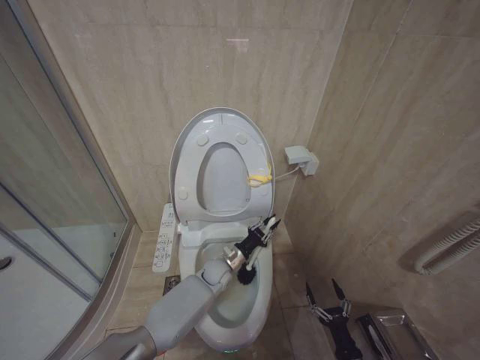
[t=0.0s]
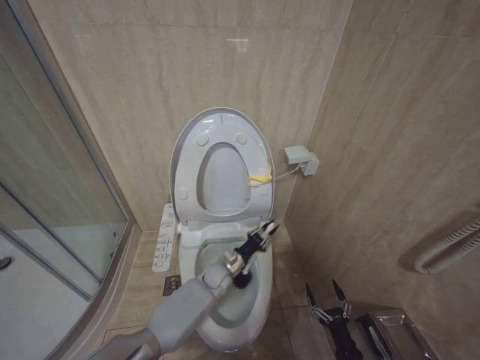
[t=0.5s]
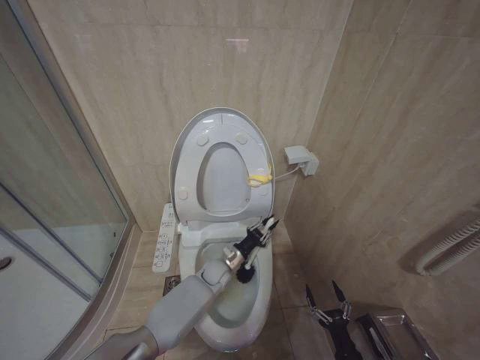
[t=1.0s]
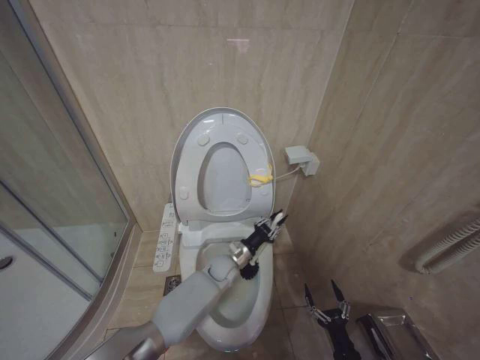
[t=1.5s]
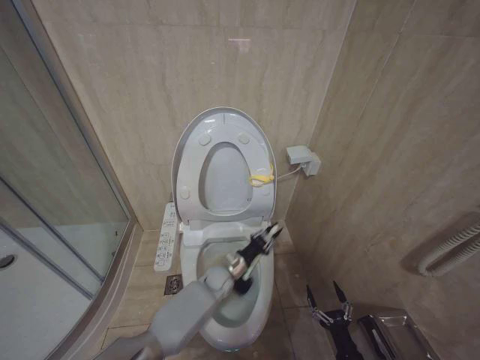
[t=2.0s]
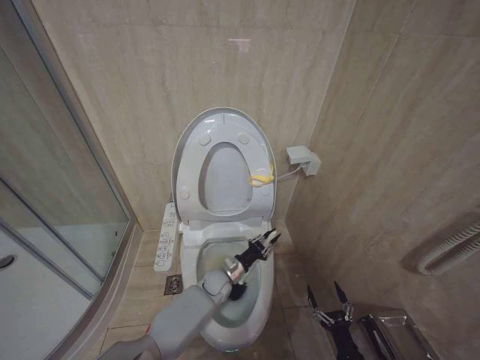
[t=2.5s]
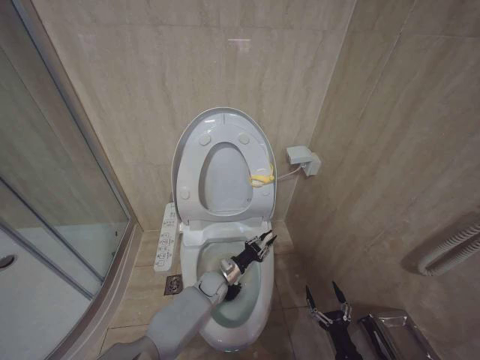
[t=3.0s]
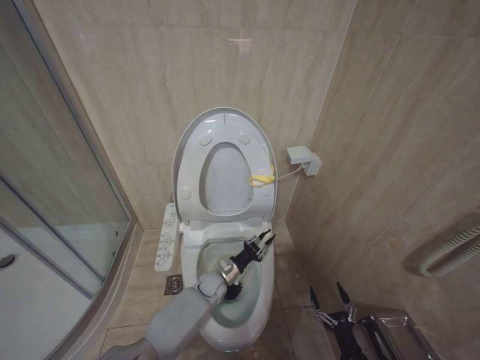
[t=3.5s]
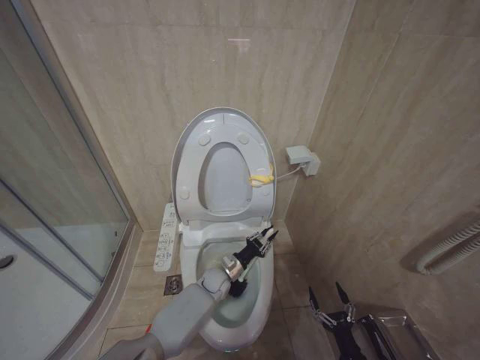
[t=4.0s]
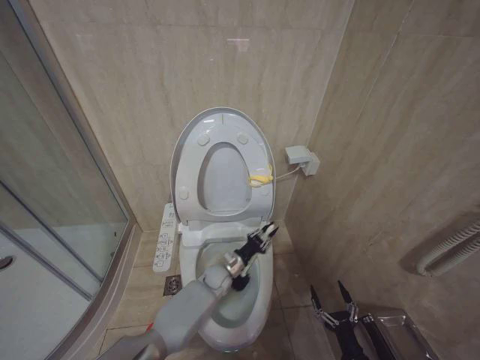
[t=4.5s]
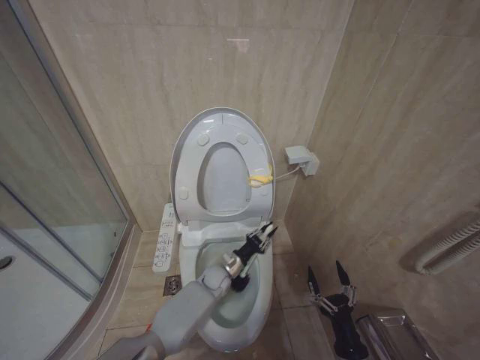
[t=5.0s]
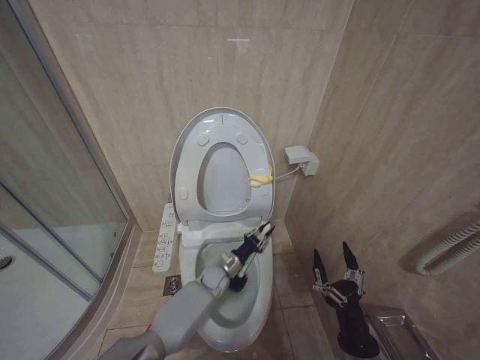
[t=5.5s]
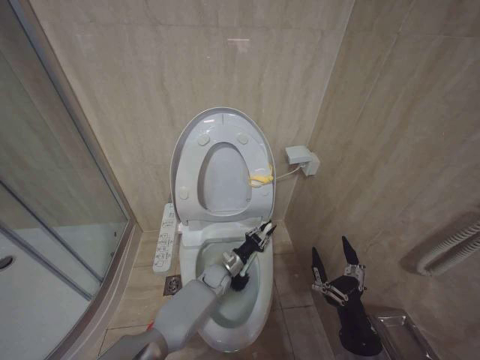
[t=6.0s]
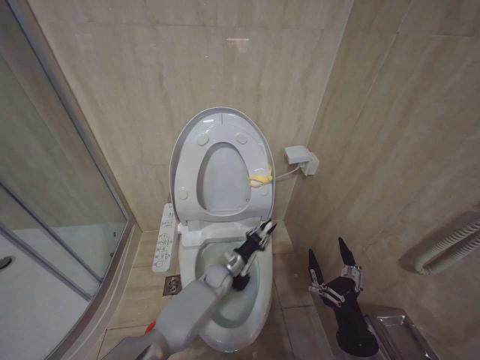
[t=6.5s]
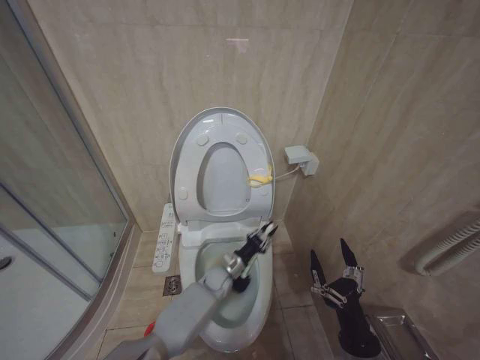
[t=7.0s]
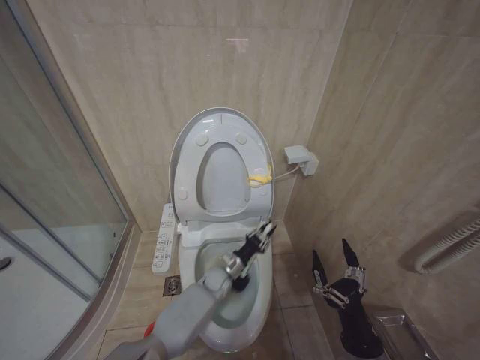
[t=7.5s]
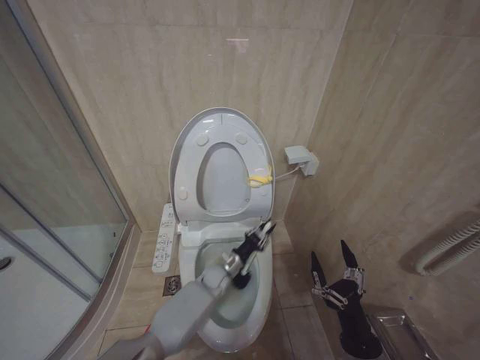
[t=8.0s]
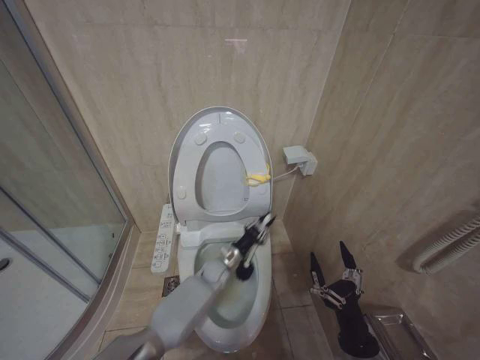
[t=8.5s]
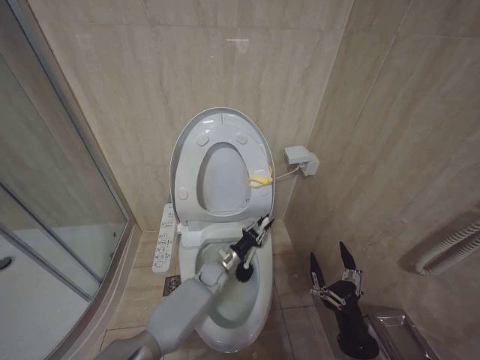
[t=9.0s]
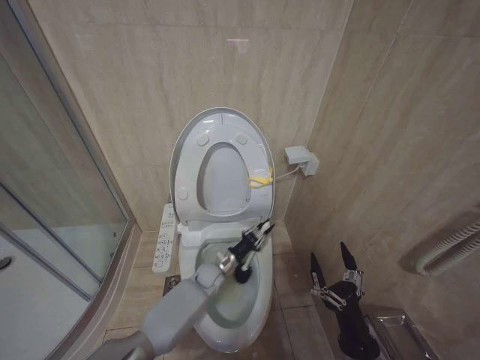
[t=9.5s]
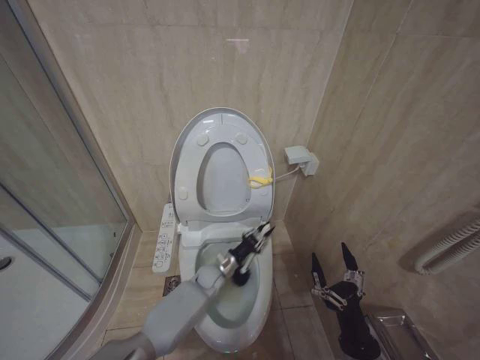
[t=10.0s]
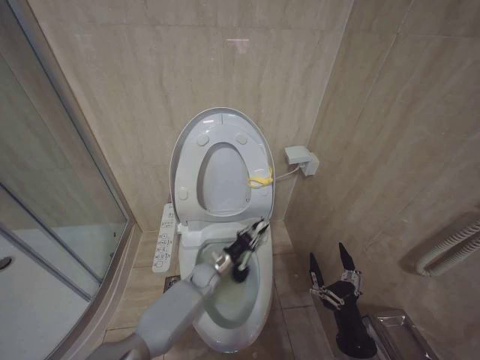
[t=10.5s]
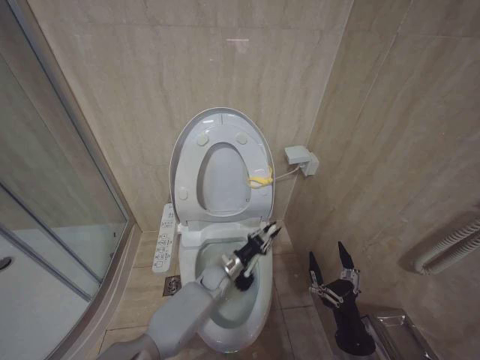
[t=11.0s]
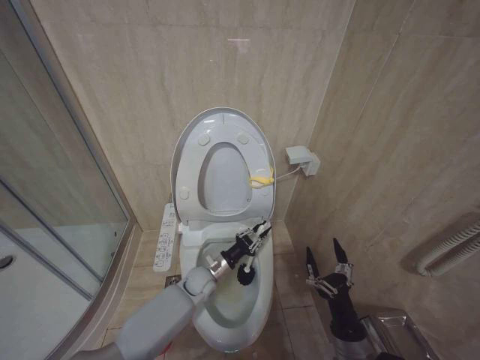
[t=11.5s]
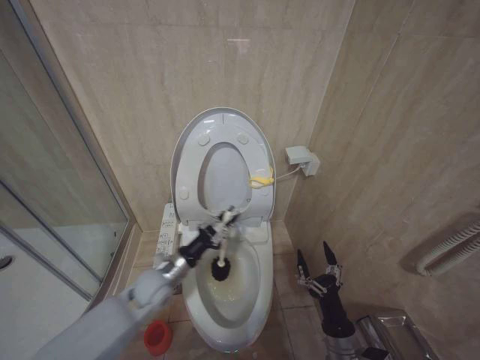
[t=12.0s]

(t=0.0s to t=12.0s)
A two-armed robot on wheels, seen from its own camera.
Task of the whole recording: Open the toilet lid, clean the toilet bowl with a toilet brush, close the toilet lid, and flush.
t=0.0s - t=2.0s: The left gripper moves roughly 5 cm.
t=2.0s - t=4.0s: There are only small adjustments of the grippers.
t=4.0s - t=6.0s: The right gripper moves upward, some 20 cm.
t=6.0s - t=8.0s: The grippers make only small movements.
t=10.0s - t=12.0s: The left gripper is displaced to the left, upward and backward by approximately 15 cm; the right gripper changes place by roughly 5 cm.

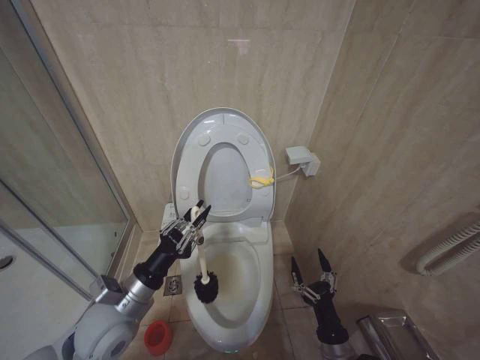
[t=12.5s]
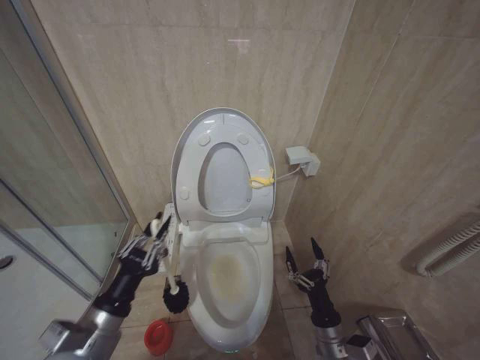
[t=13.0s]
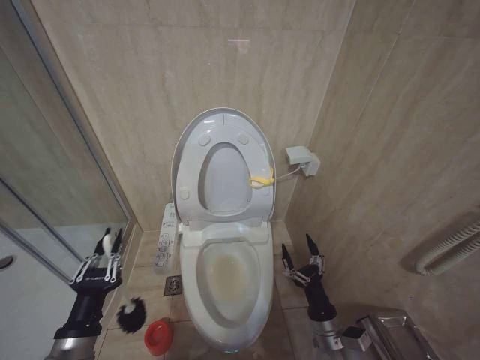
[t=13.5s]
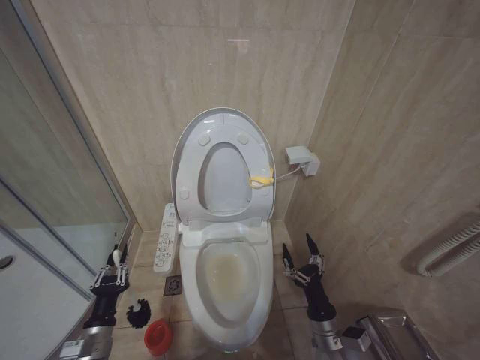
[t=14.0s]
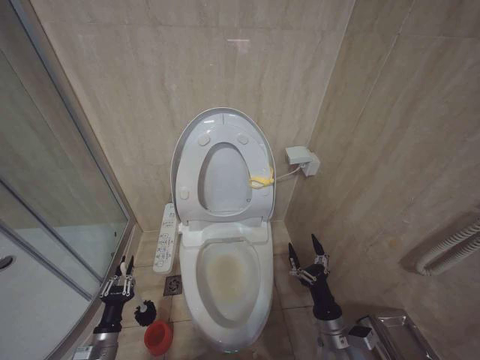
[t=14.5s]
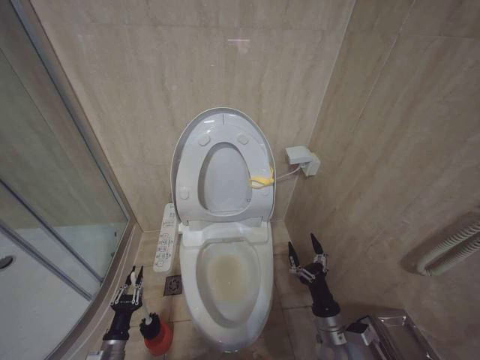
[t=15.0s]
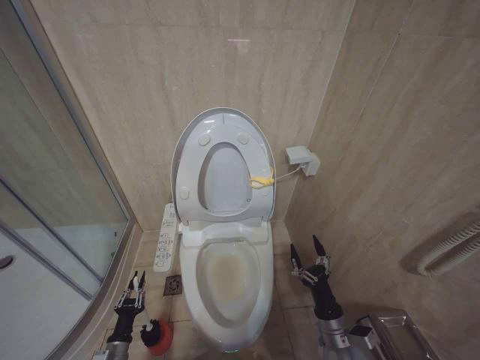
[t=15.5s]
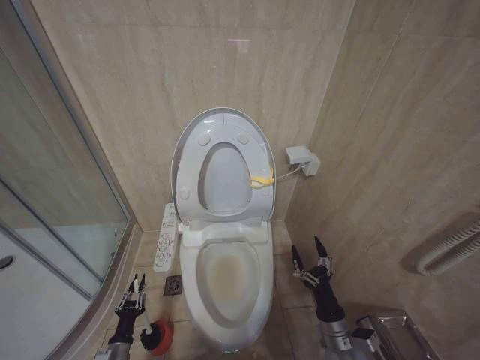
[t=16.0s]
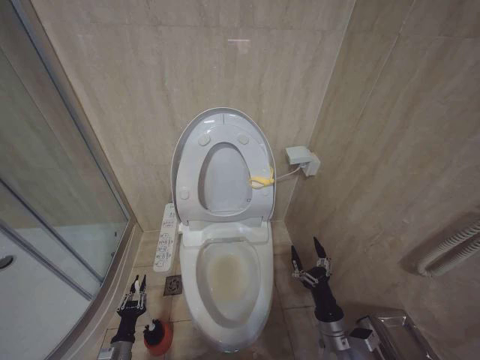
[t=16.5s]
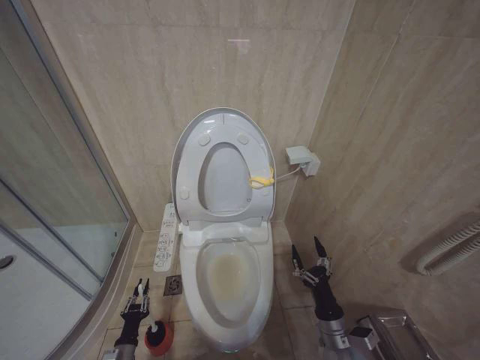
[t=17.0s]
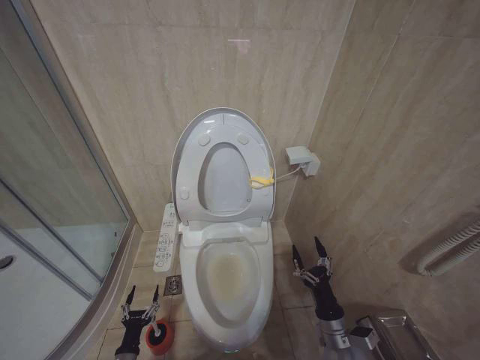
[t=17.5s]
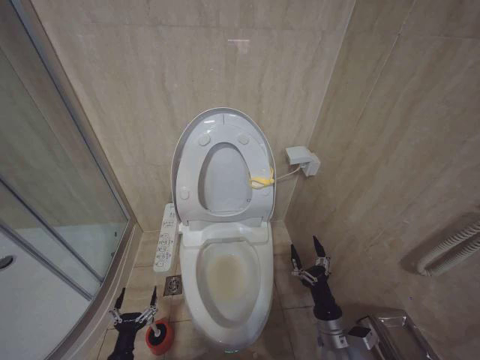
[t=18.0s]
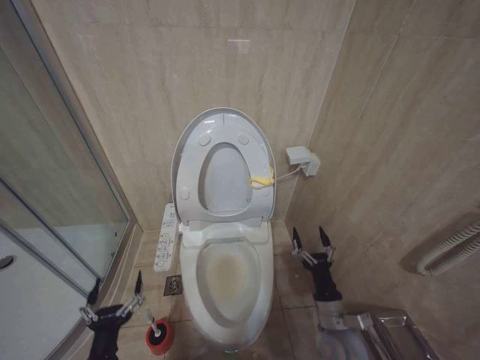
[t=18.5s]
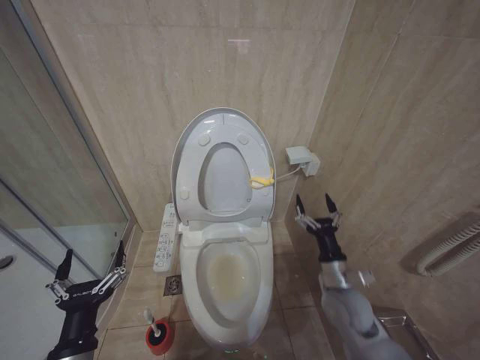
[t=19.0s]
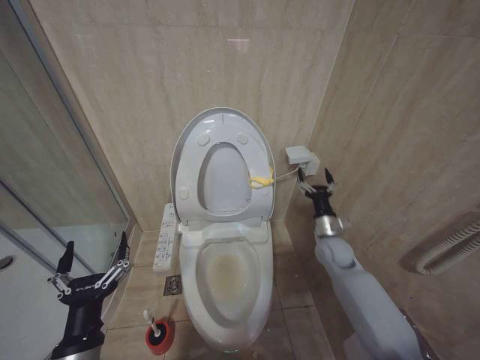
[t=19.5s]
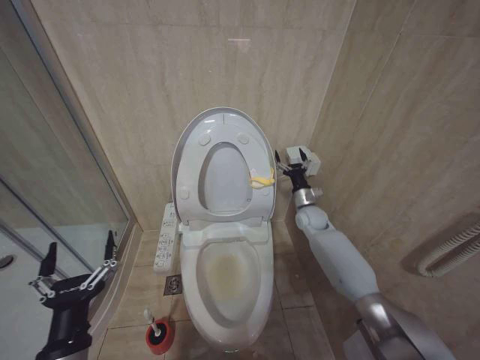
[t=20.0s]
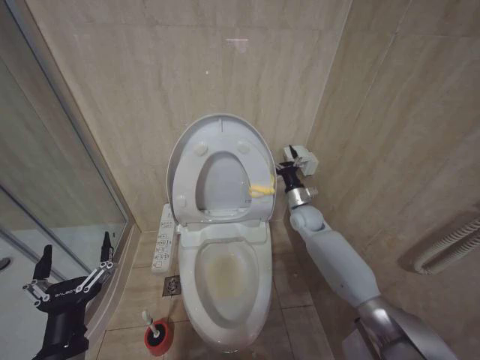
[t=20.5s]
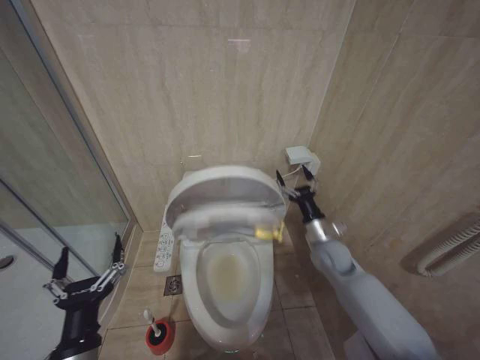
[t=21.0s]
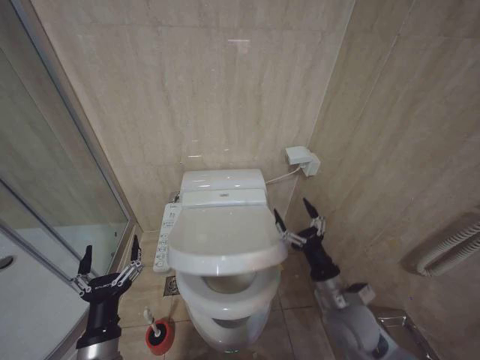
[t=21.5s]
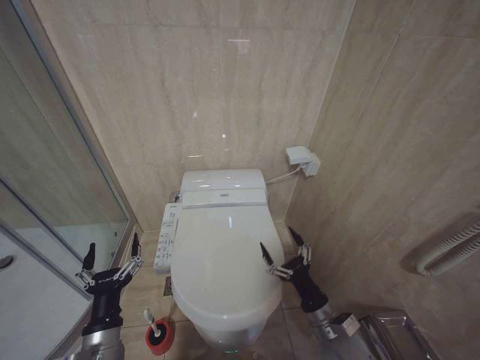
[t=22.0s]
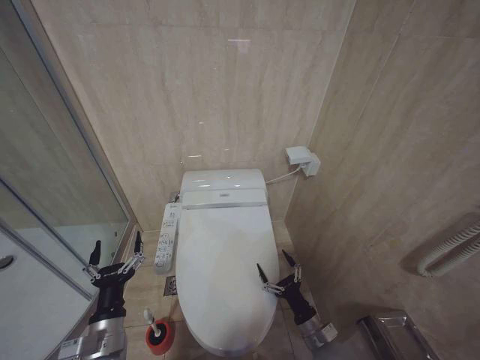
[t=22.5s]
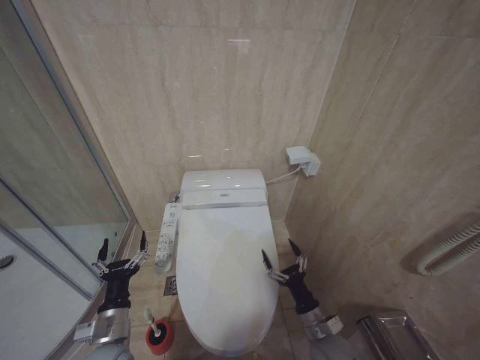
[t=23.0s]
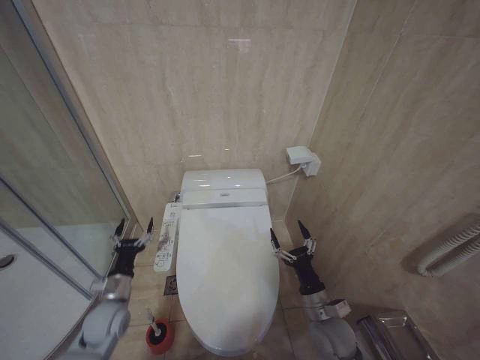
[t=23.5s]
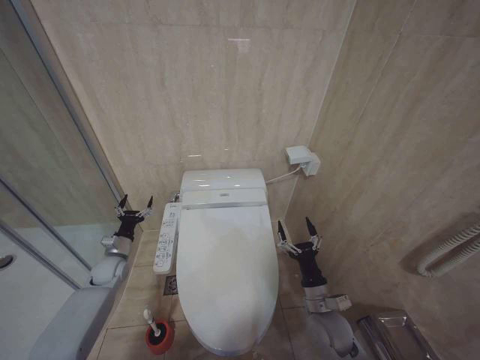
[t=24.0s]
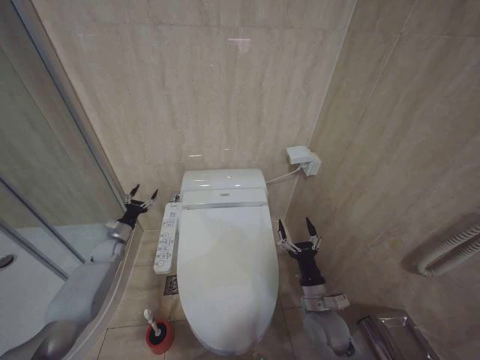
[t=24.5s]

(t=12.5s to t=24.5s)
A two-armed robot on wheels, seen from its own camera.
Task of the whole recording: Open the toilet lid, clean the toilet bowl with a toilet brush, close the toilet lid, and flush.
t=12.5s - t=14.5s: The right gripper shifts by some 5 cm, while the left gripper moves downward and to the left, some 25 cm.
t=14.5s - t=16.5s: The left gripper moves downward, some 10 cm.
t=16.5s - t=18.5s: The left gripper is displaced upward and backward by some 20 cm, and opens up.
t=18.5s - t=20.5s: The right gripper shifts about 35 cm forward and upward. The left gripper travels upward by approximately 15 cm.
t=20.5s - t=22.5s: The right gripper moves backward and downward, approximately 35 cm; the left gripper is displaced downward and forward by some 10 cm.
t=22.5s - t=24.5s: The left gripper shifts roughly 35 cm forward and to the left. The right gripper heads upward, covering approximately 5 cm.

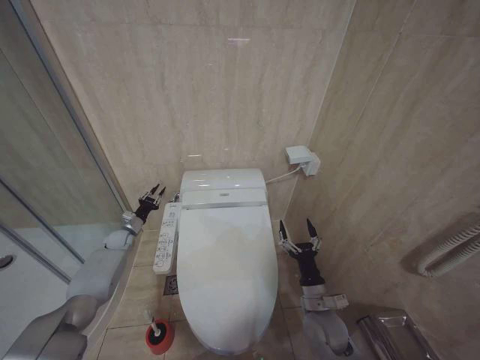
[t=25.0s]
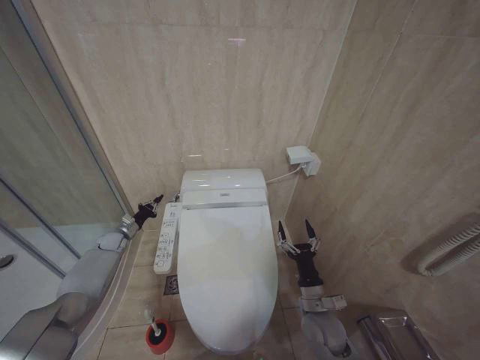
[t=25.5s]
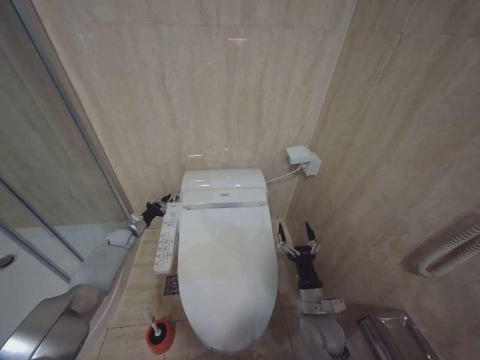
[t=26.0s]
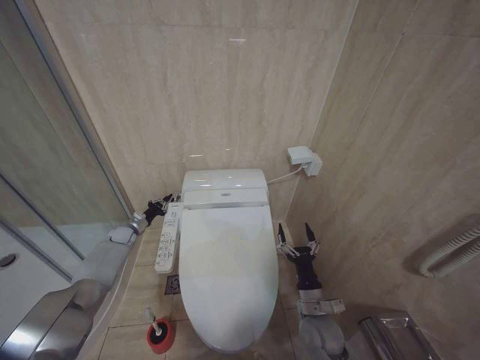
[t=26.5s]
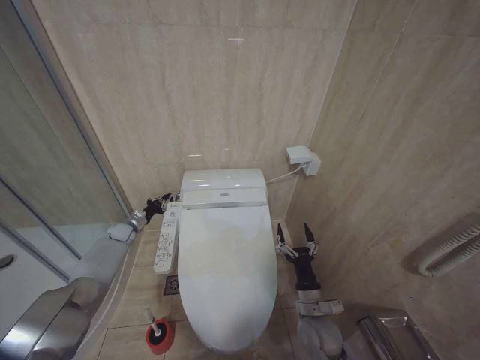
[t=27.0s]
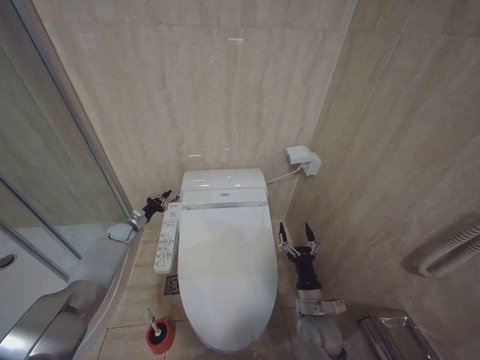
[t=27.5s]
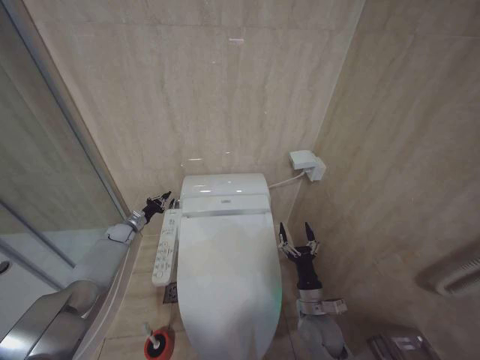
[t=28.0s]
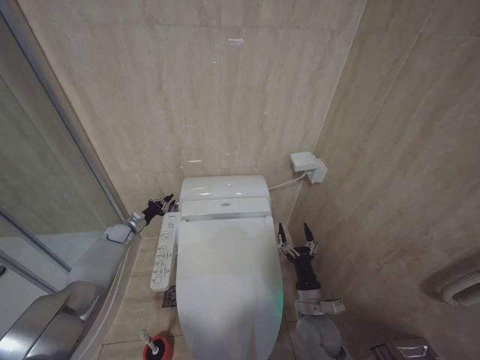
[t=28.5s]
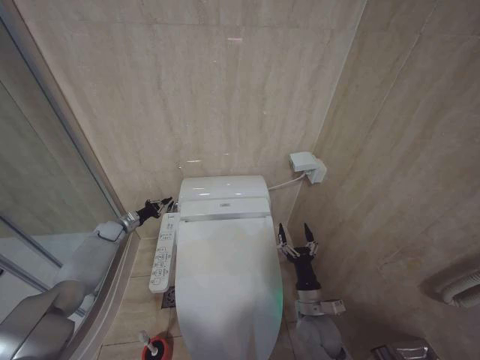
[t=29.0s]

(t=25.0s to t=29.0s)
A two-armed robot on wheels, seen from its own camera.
Task of the whole recording: Open the toilet lid, clean the toilet bowl with a toilet brush, close the toilet lid, and flush.
t=25.0s - t=27.0s: The left gripper closes its fingers.
t=27.0s - t=29.0s: The grippers make only small movements.
